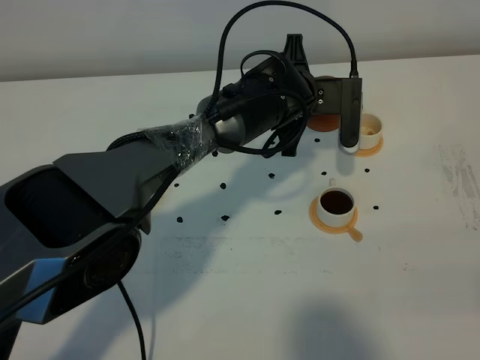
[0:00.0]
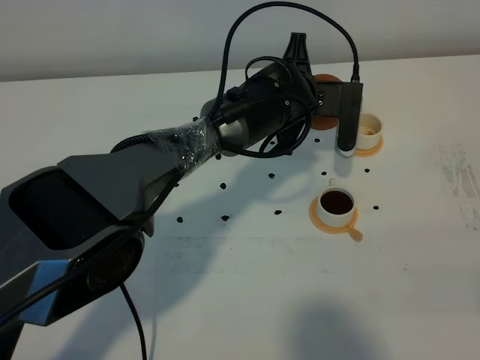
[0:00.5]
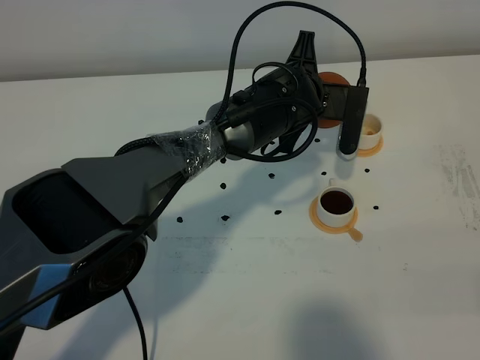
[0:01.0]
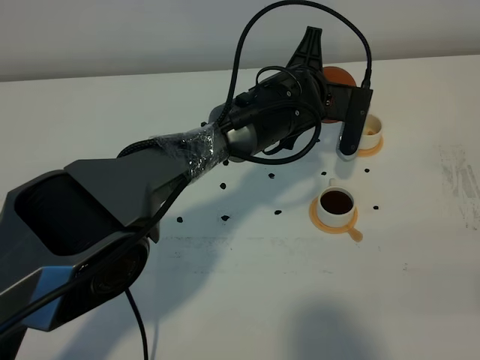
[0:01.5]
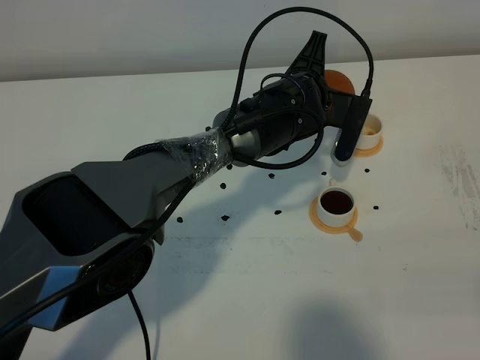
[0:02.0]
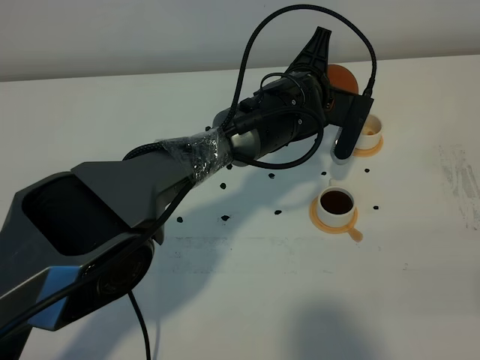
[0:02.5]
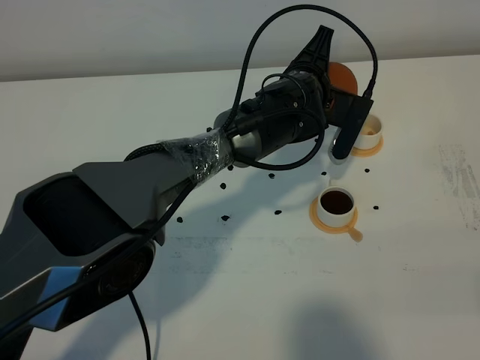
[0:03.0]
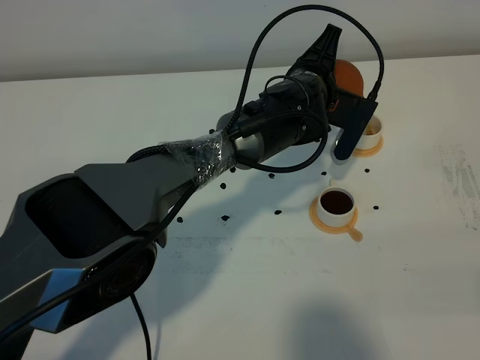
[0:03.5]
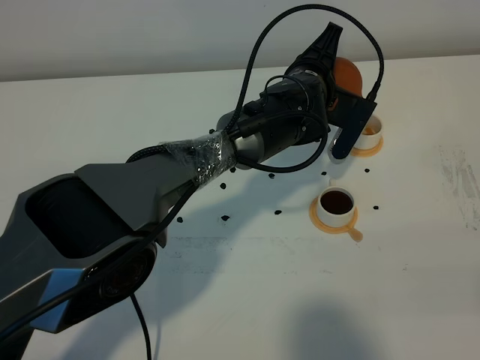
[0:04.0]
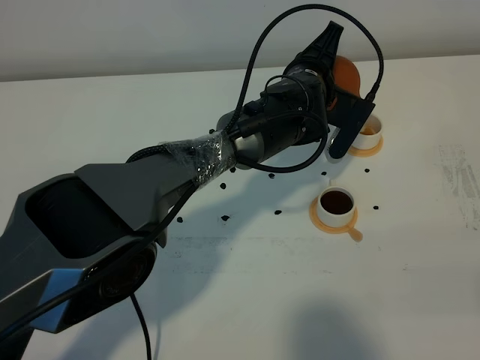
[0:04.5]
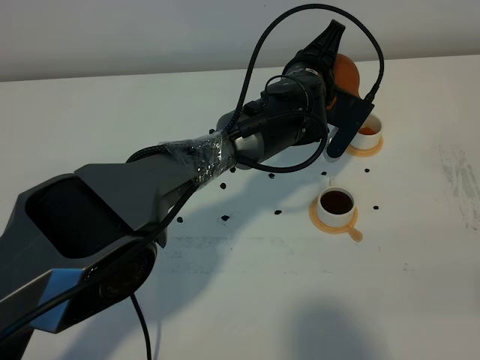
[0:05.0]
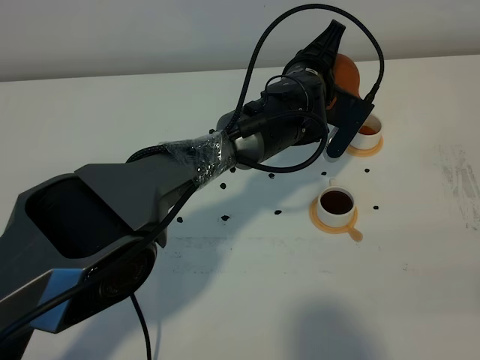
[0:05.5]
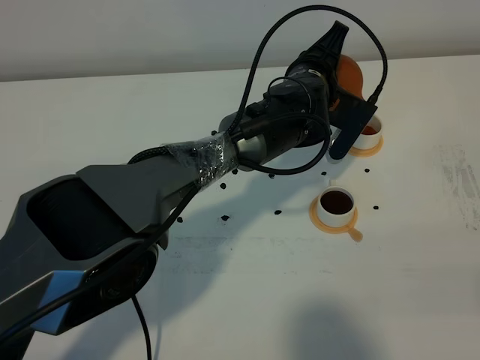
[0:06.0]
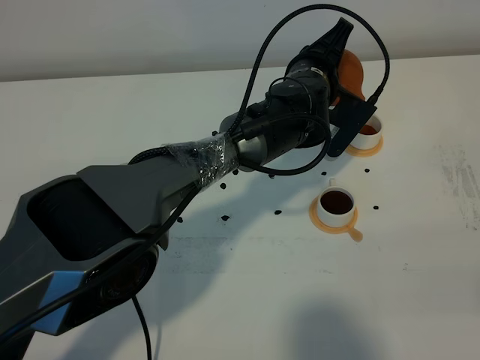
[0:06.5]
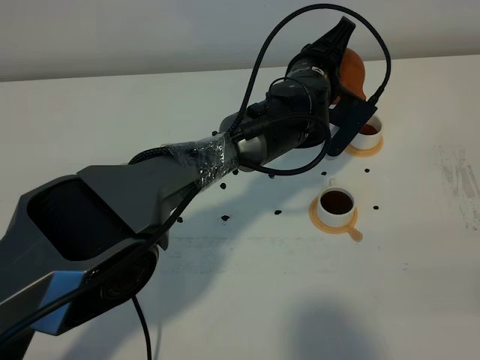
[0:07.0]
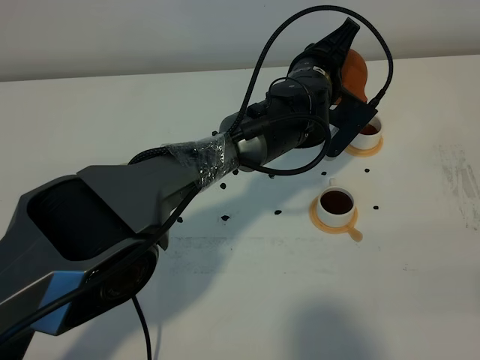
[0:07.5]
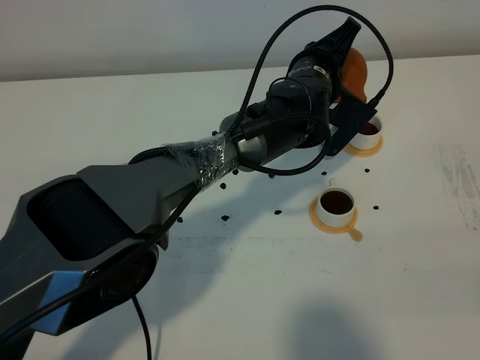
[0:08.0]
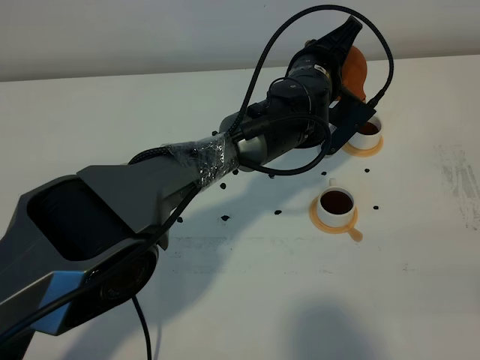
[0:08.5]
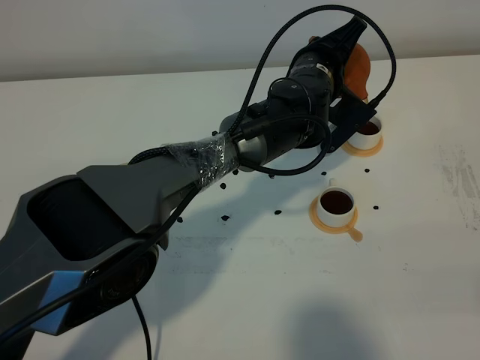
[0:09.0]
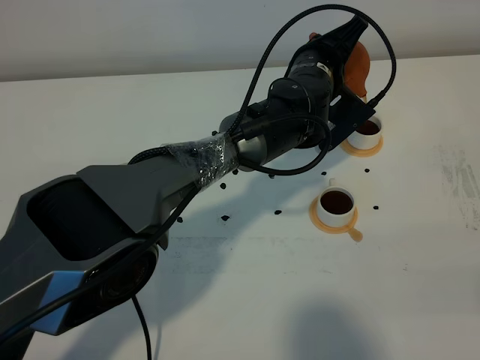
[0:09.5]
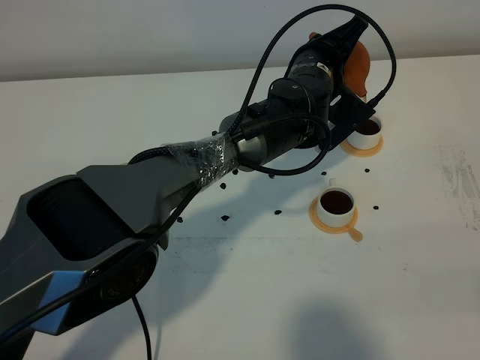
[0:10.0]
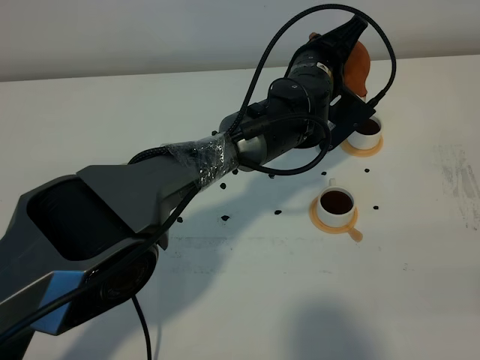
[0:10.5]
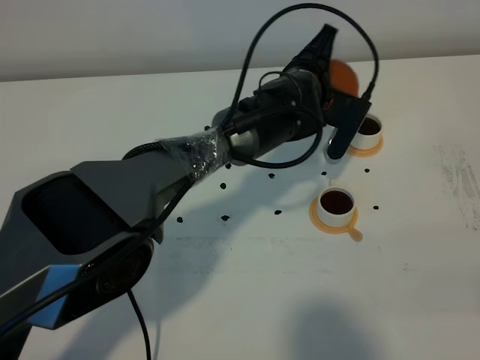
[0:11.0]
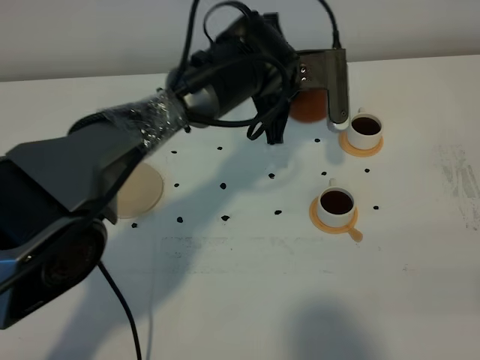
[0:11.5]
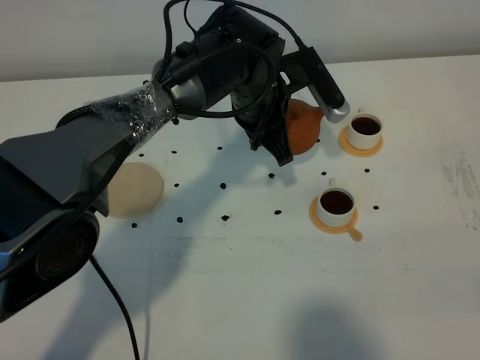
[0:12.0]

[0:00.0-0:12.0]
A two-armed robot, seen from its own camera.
Task of the whole recording: grasp the brown teapot and pour the tea into the two white teacups one by one, put the brown teapot back in its original place.
Step, 0:00.0 to 0:11.0: Pour tea into the teacup with the left gripper.
0:00.0 to 0:02.0: The grippers move only a little.
0:02.0 to 0:04.0: There are only small adjustments of the grippers.
0:04.0 to 0:06.0: Both grippers stay about where they are.
0:06.0 to 0:10.0: There are only small adjustments of the grippers.
0:10.0 to 0:12.0: The left gripper travels to the left by roughly 10 cm.

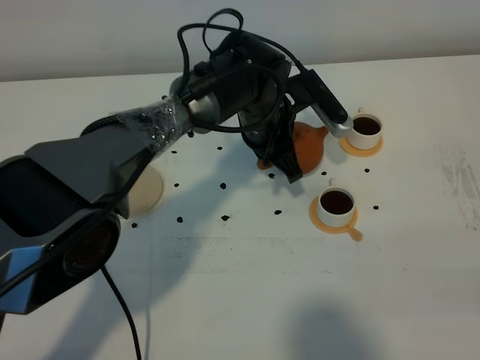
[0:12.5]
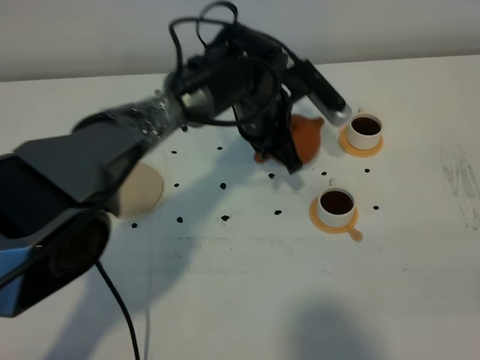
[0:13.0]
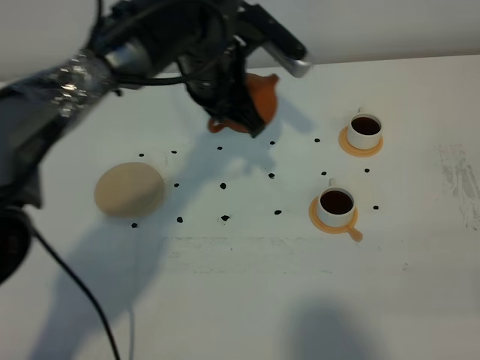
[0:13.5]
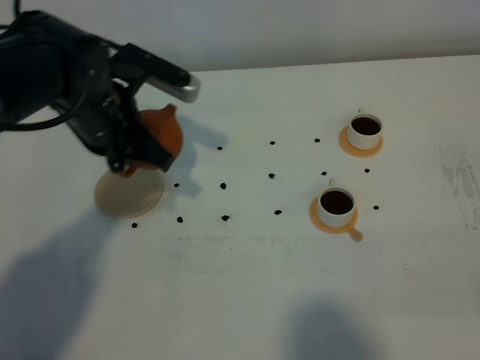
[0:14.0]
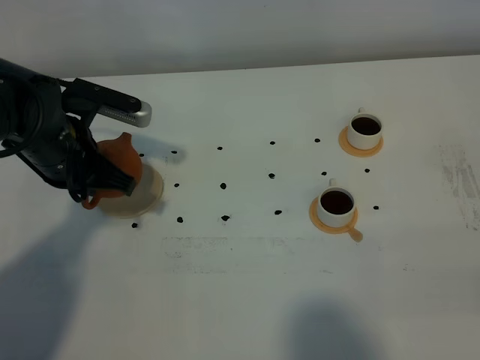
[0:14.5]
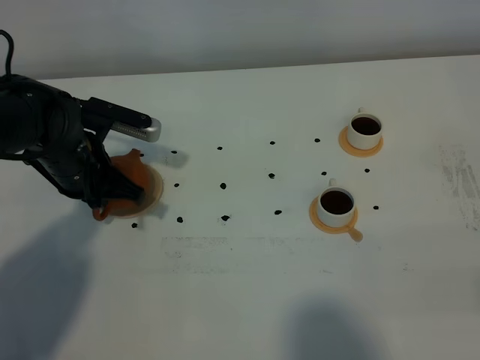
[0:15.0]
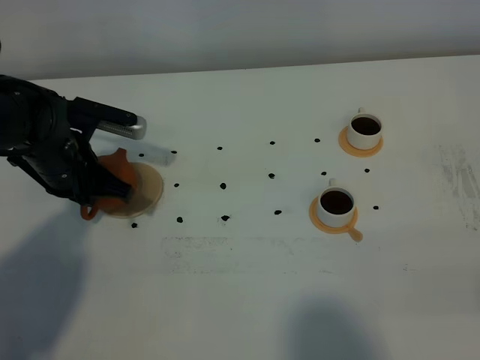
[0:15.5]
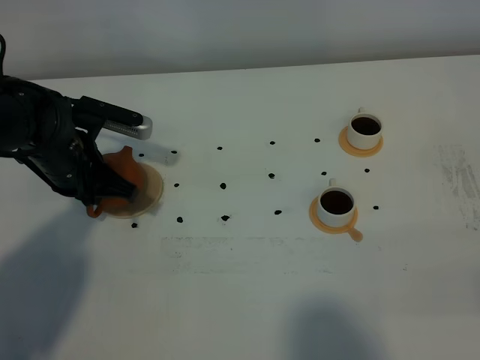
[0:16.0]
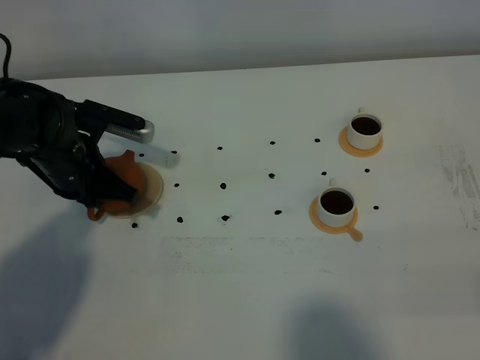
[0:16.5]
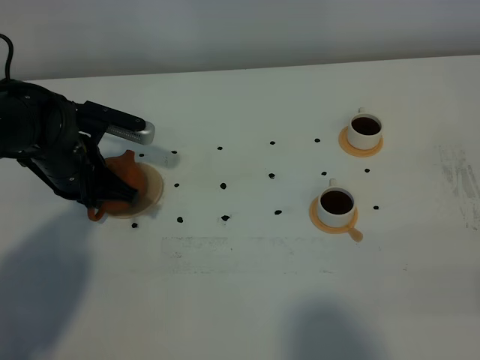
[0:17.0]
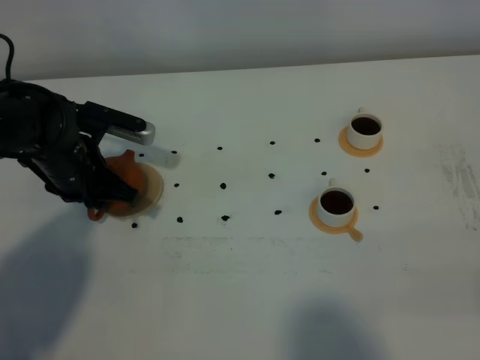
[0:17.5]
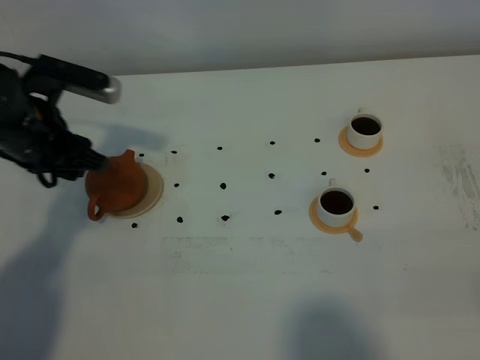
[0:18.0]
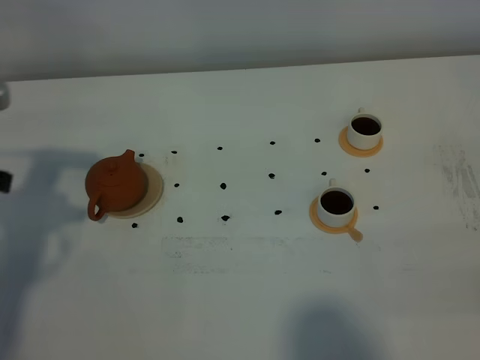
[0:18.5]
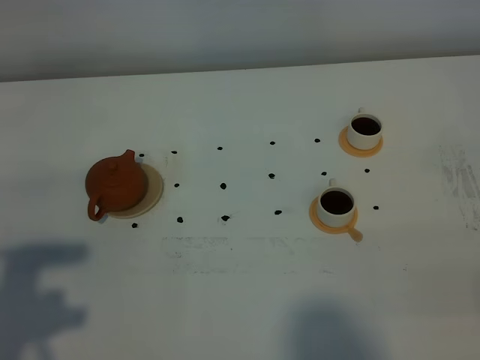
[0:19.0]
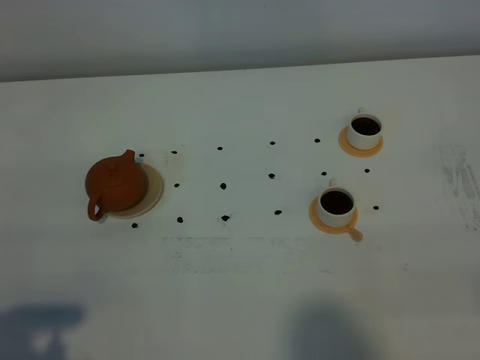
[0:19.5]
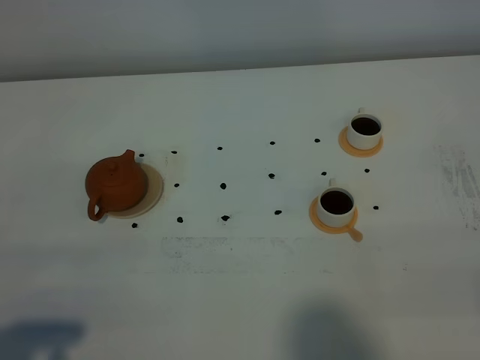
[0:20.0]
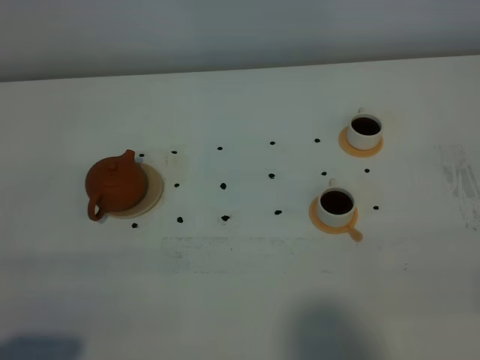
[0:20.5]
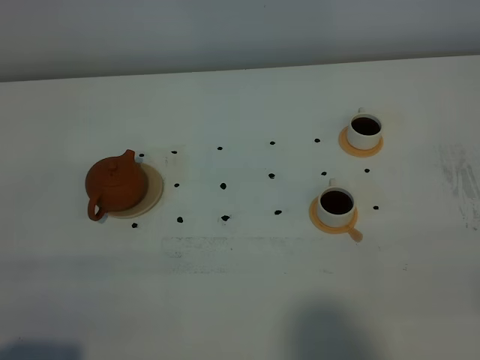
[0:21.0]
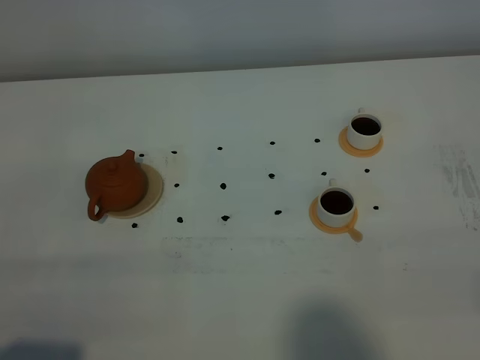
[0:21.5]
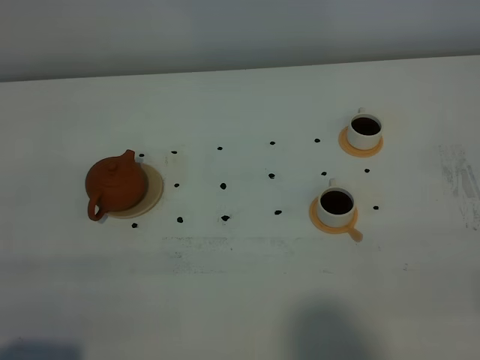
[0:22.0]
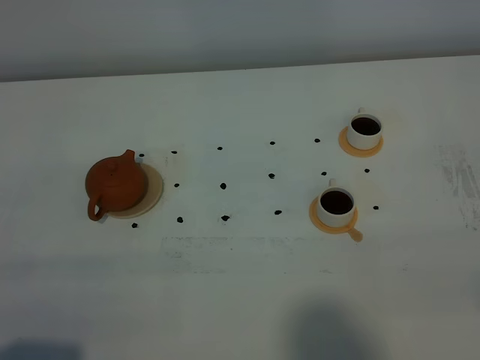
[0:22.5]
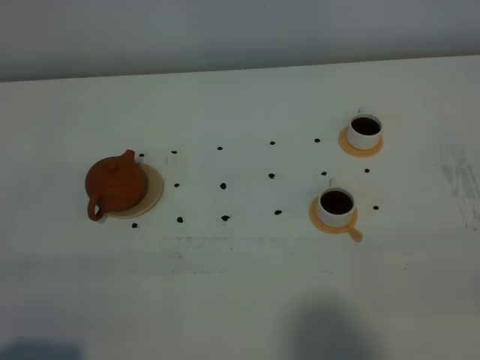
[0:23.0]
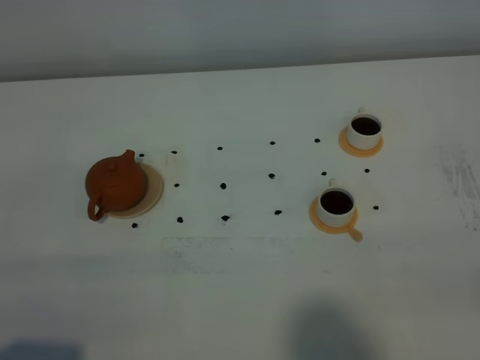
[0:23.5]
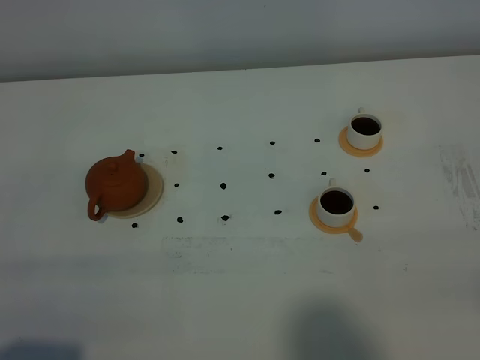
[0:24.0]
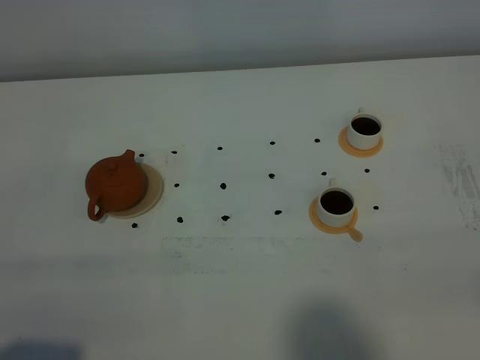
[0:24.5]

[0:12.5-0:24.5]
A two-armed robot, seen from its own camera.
Task of the whole recording: grasp the brown teapot and pour the tea into the two white teacups one by one, put the brown teapot back in its original place.
0:12.5 to 0:14.5: The left gripper shifts about 25 cm to the left.
0:14.5 to 0:16.5: The left gripper changes place by some 5 cm.
0:16.5 to 0:18.5: The left gripper moves upward, backward and to the left, approximately 20 cm, and opens.
0:18.5 to 0:20.5: The left gripper goes roughly 25 cm backward.
0:20.5 to 0:24.5: The two grippers keep their place.

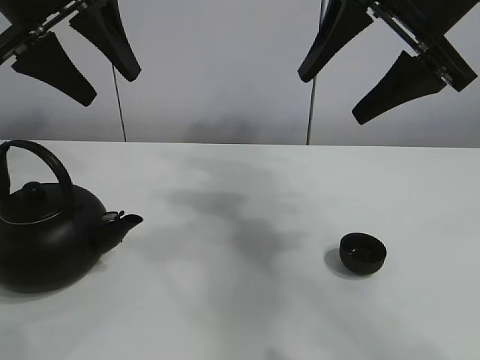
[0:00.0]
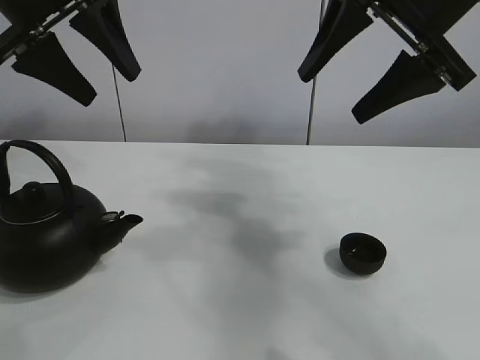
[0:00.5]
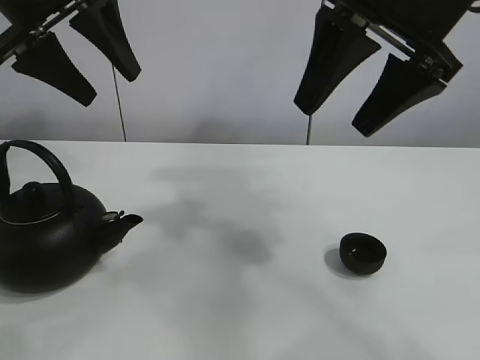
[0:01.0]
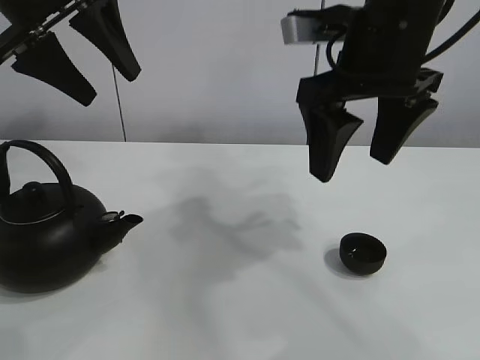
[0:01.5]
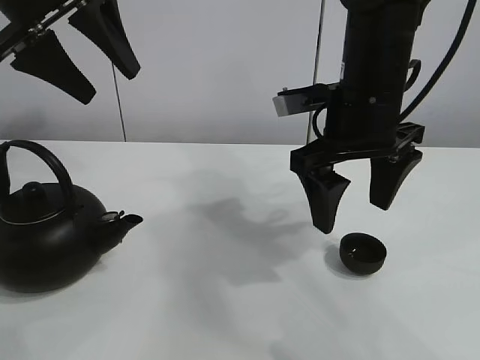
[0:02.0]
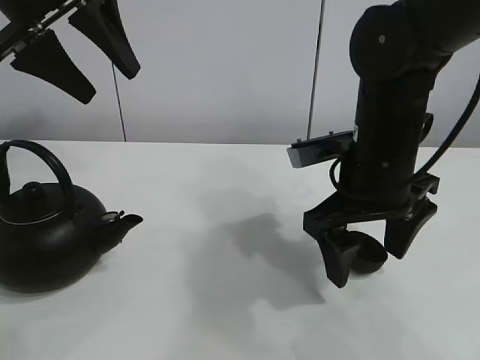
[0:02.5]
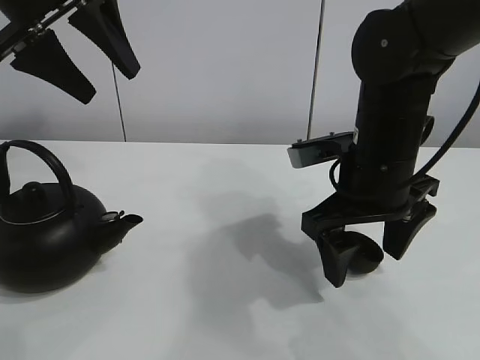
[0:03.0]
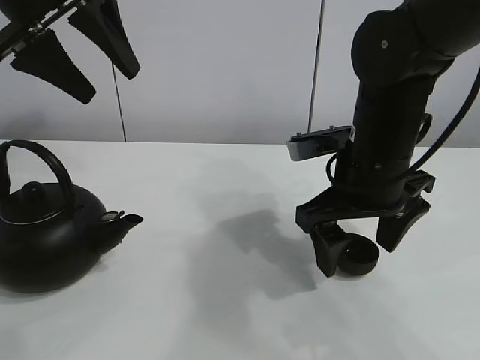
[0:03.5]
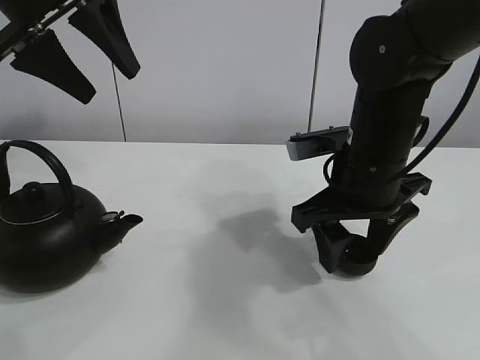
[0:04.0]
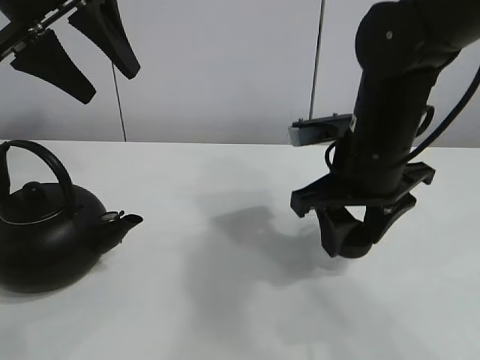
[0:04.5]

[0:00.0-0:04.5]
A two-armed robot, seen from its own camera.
Task of the whole recording: pour tea into the teacup.
Step, 0:00.0 to 0:04.0: Pick up the teacup with the right gripper.
0:02.0 to 0:04.5: The right gripper closes.
